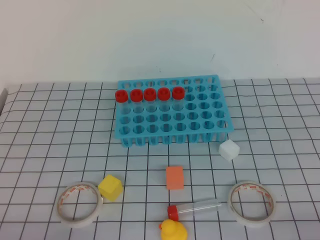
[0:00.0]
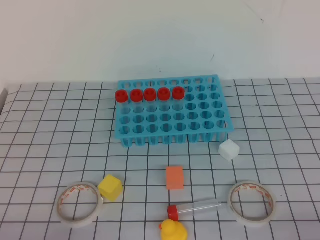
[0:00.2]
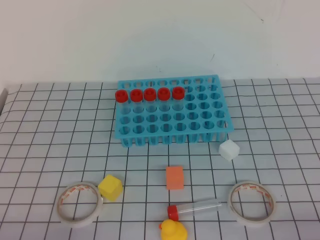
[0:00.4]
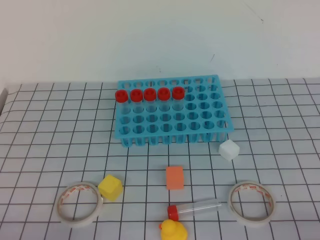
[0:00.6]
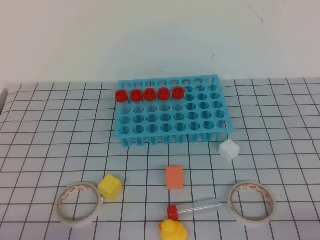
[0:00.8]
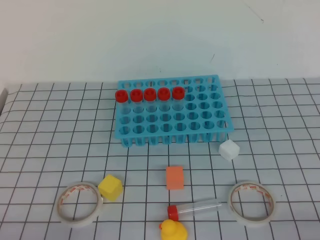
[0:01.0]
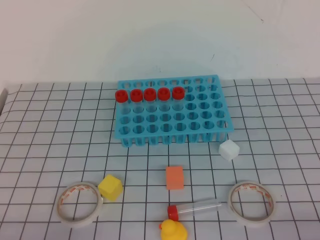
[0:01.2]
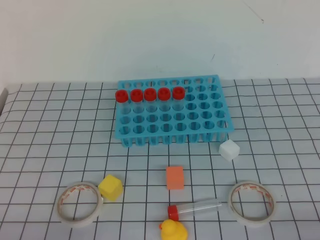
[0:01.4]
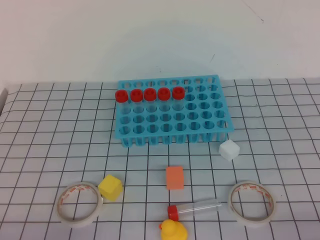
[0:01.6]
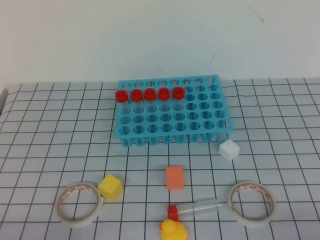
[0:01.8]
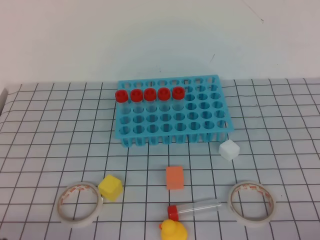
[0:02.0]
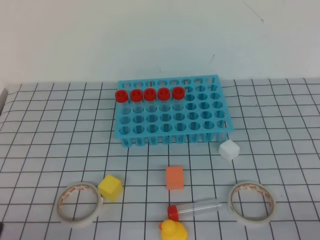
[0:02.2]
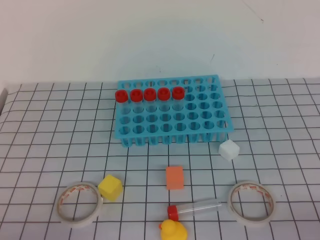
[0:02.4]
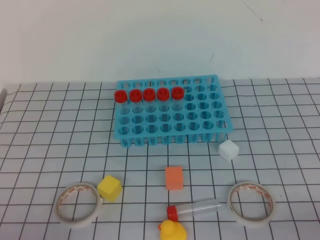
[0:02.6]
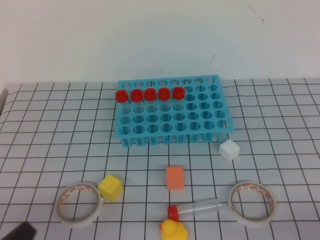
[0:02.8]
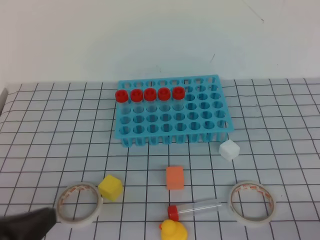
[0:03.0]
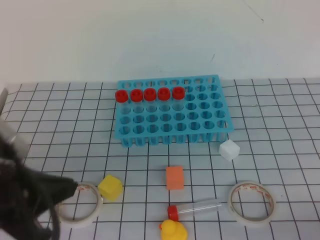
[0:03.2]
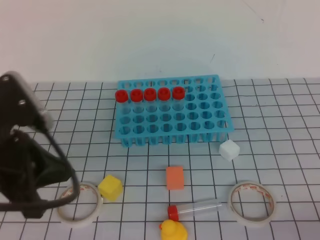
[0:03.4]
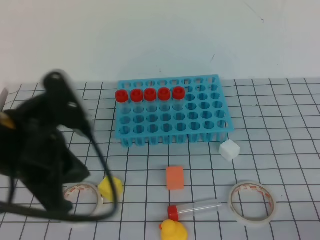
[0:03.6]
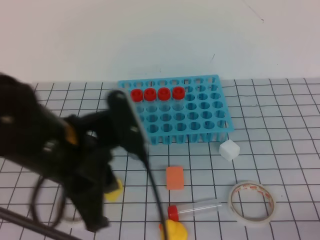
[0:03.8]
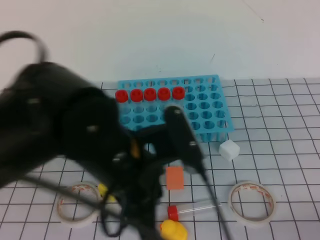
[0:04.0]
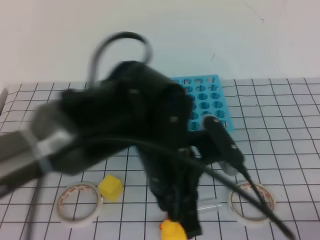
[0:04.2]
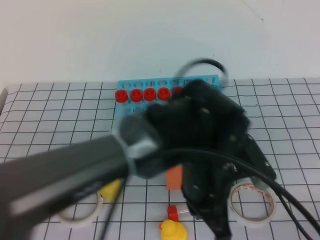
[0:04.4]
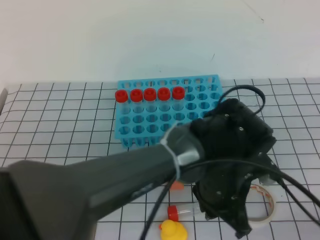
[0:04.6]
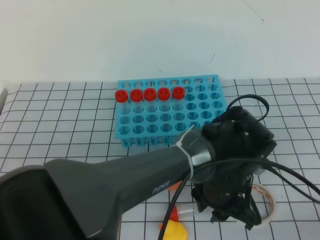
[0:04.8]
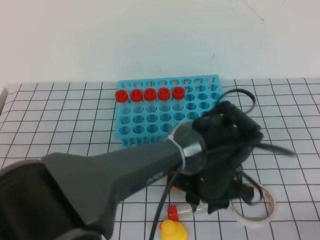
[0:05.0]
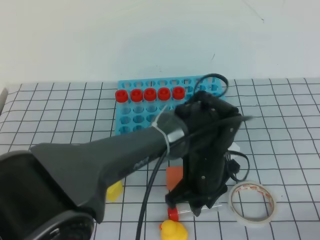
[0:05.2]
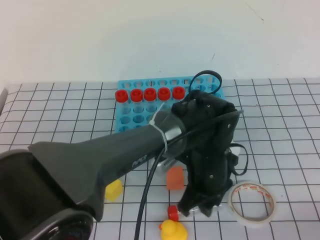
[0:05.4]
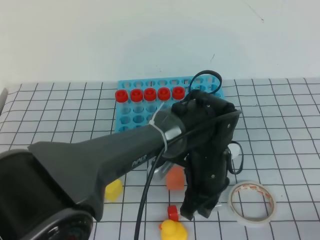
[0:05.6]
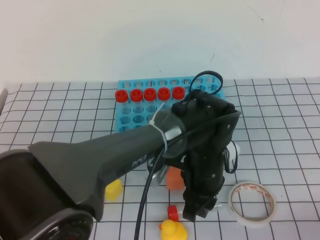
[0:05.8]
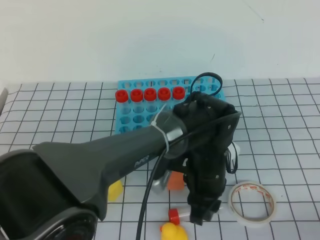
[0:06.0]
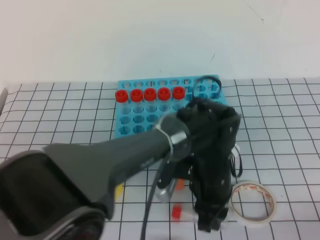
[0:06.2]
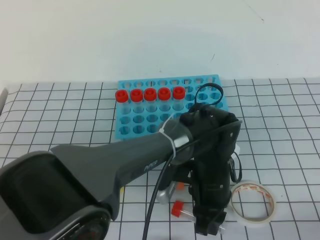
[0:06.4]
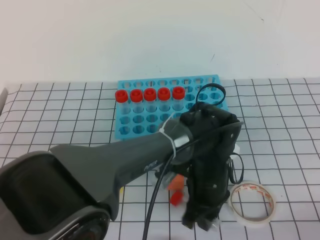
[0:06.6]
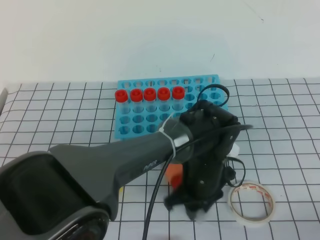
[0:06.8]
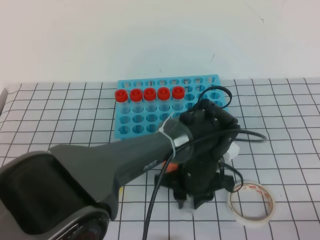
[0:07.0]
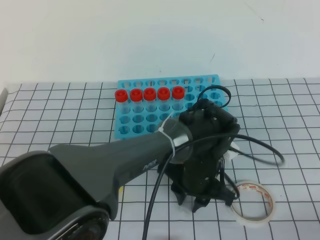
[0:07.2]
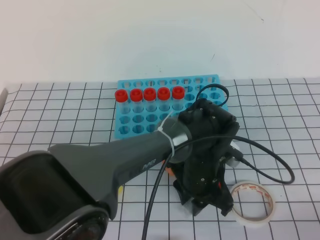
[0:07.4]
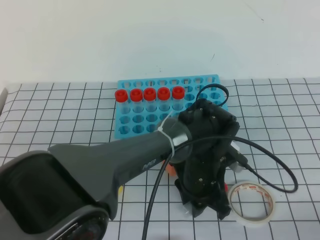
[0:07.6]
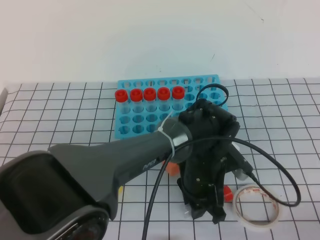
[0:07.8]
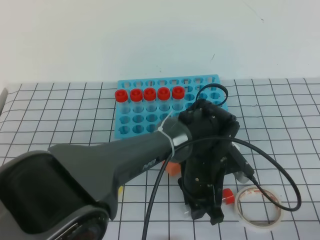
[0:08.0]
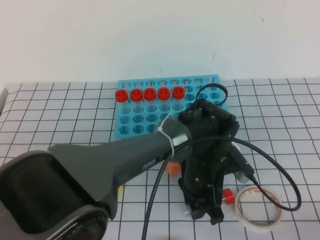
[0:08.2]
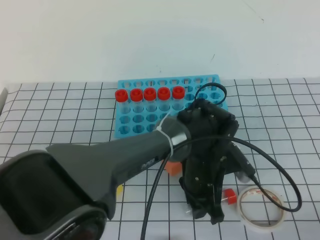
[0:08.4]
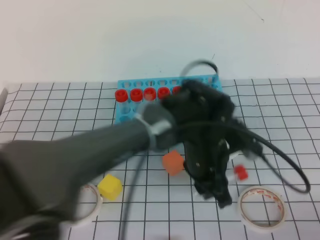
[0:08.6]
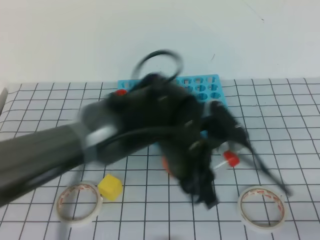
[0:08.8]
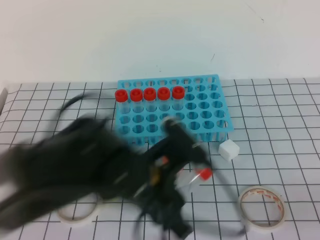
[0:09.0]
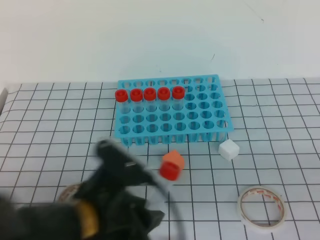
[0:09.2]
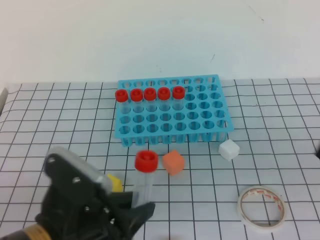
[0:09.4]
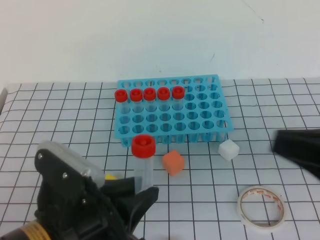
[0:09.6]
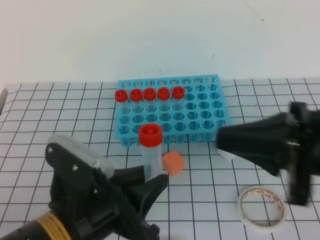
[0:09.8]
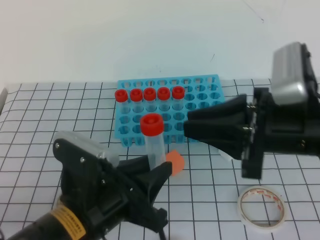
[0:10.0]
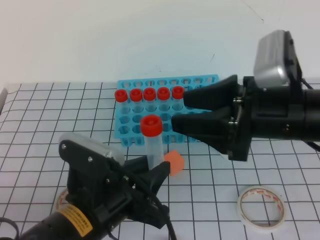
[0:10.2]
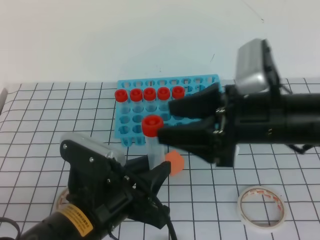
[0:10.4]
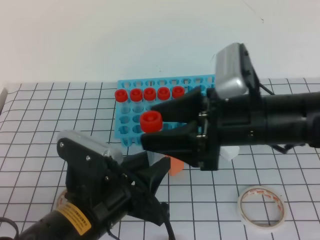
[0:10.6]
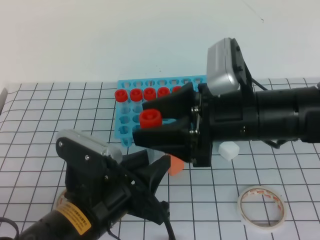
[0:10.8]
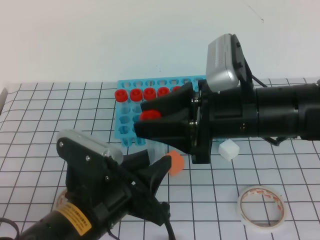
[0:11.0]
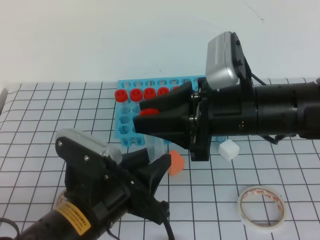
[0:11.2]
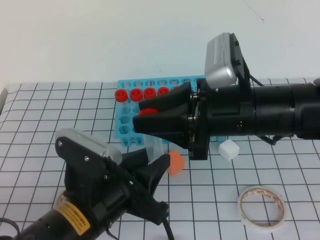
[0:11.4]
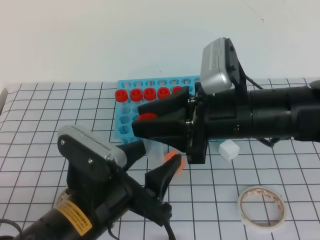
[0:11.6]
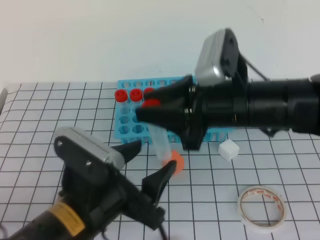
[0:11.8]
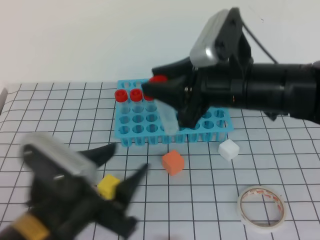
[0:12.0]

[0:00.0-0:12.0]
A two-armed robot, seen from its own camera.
0:00.0 to 0:01.6: Both grippers stay put.
0:01.6 to 0:03.0: The left gripper goes roughly 10 cm upward.
0:03.0 to 0:04.4: The left gripper shifts approximately 30 cm to the right and forward.
0:04.4 to 0:06.0: The left gripper heads downward and forward, covering roughly 10 cm, and opens.
0:07.6 to 0:09.0: The left gripper shifts about 15 cm upward, backward and to the left.
0:09.0 to 0:10.4: The right gripper shifts some 25 cm forward and to the left, and opens, while the left gripper heads to the left and backward, covering approximately 10 cm.
0:10.4 to 0:12.0: The left gripper opens, while the right gripper closes up.

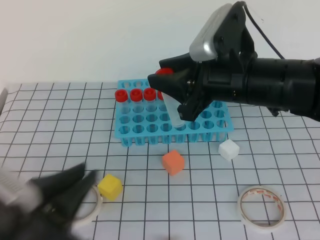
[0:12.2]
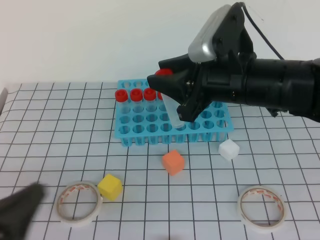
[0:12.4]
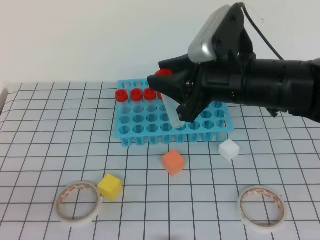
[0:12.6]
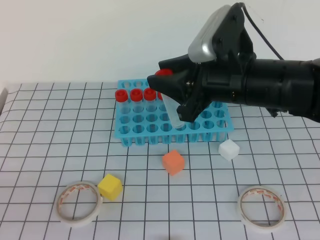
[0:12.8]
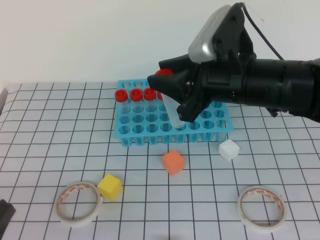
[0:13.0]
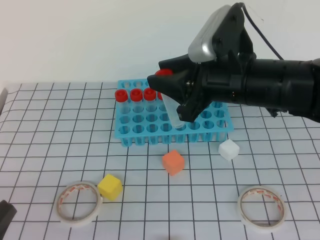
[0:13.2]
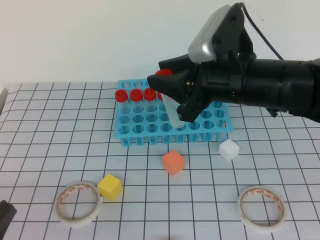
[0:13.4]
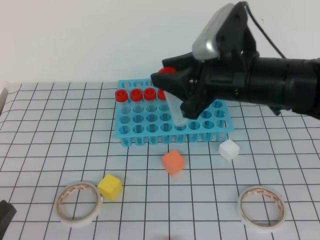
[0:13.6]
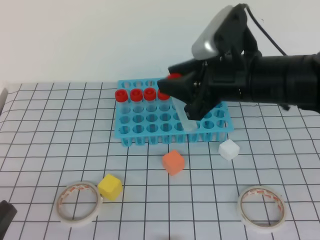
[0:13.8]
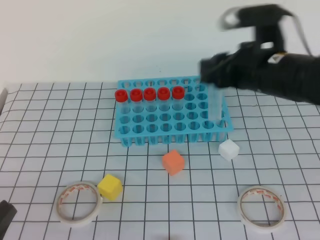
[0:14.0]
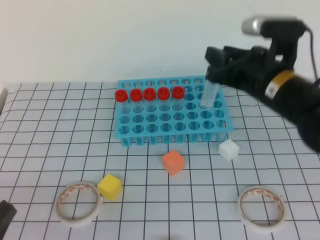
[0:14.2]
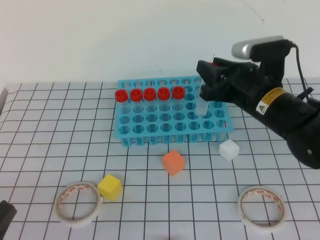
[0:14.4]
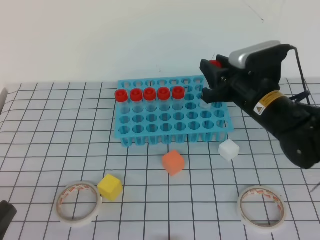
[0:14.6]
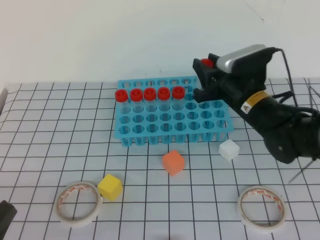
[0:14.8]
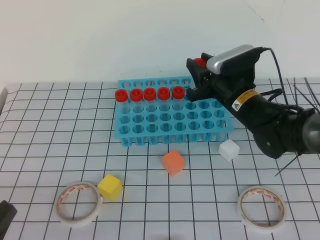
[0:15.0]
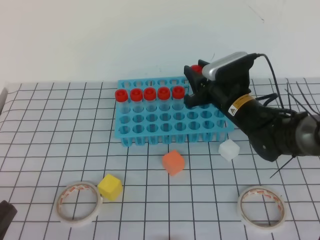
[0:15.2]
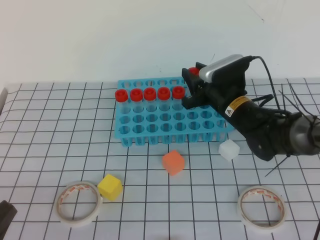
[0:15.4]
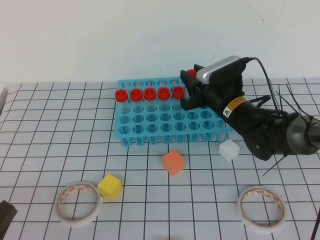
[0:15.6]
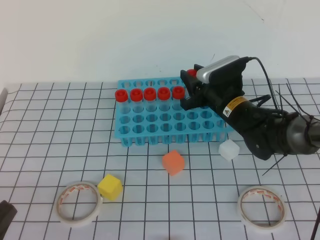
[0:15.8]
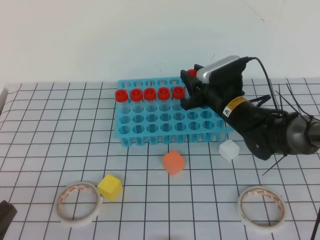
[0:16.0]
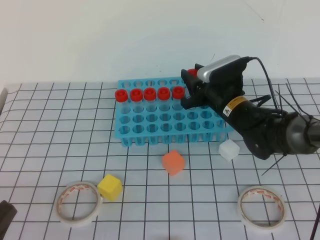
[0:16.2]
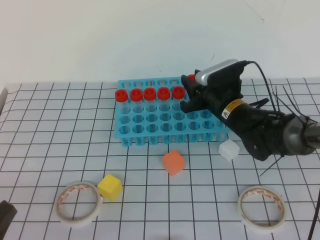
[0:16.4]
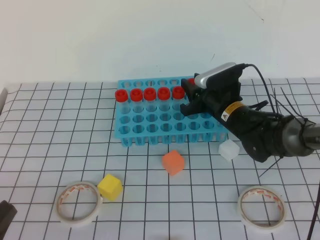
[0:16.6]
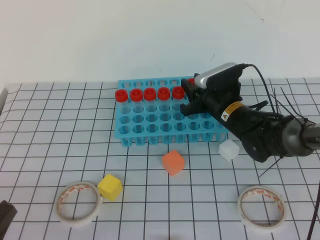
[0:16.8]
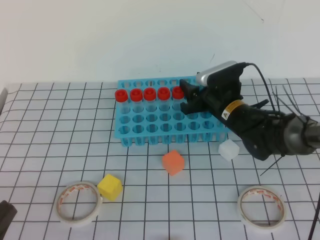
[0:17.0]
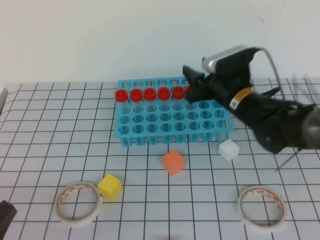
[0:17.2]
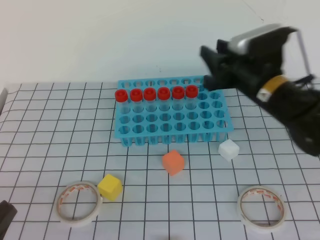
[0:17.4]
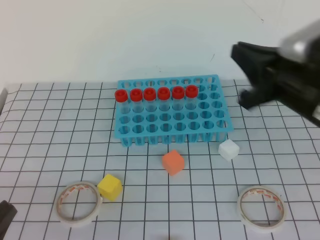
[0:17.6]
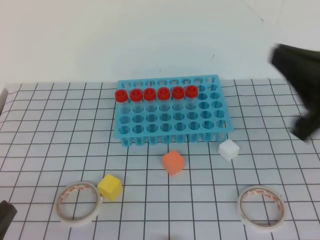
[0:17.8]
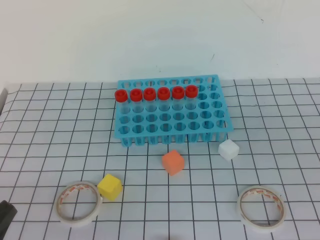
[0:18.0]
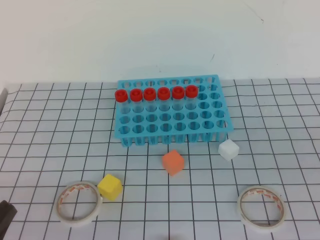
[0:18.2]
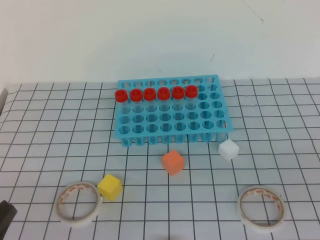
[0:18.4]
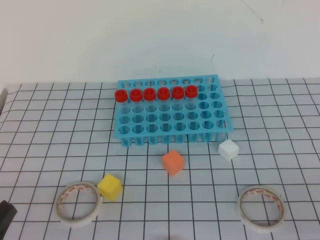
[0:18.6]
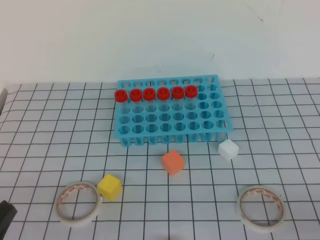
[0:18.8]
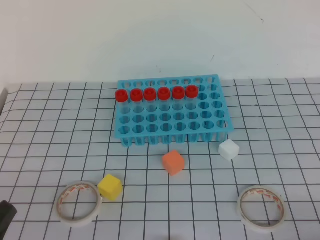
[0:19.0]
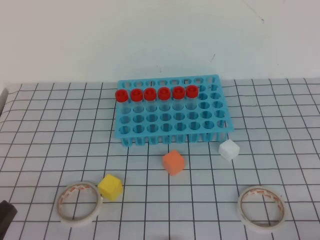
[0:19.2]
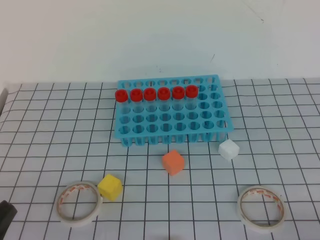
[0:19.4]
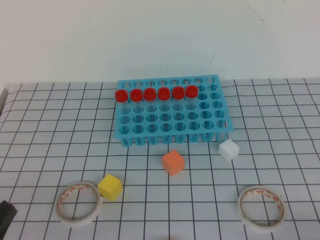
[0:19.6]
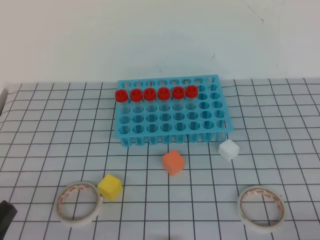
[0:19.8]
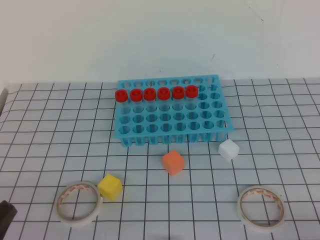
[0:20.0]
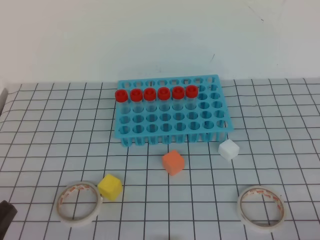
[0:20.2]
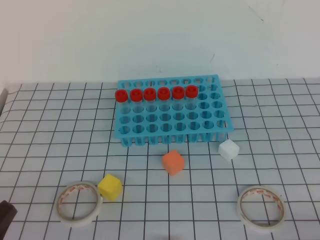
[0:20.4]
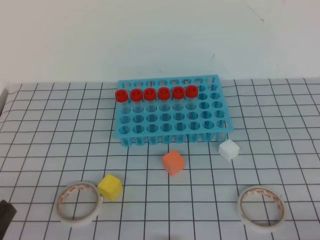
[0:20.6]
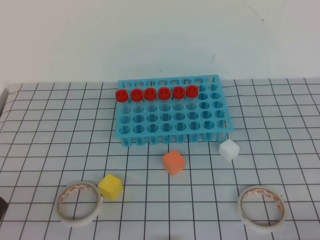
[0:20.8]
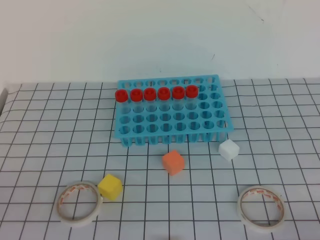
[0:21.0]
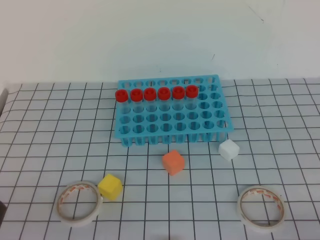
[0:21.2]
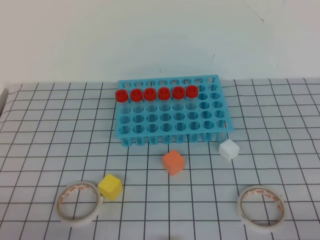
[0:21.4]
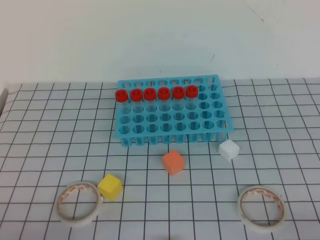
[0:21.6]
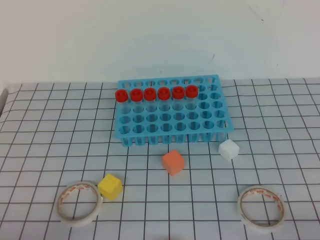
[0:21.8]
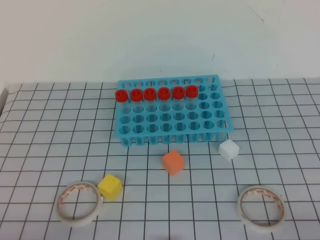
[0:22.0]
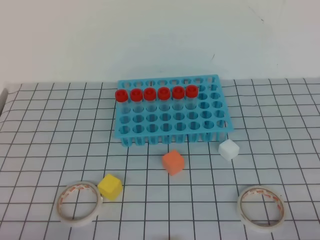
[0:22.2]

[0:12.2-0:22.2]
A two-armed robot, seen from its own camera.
0:12.2 to 0:13.6: The left gripper travels to the left and backward by approximately 10 cm, and closes its fingers.
0:13.6 to 0:15.0: The right gripper goes some 15 cm downward and forward.
0:15.0 to 0:16.4: The right gripper ends up some 5 cm from where it was.
0:16.4 to 0:18.0: The right gripper goes some 35 cm backward, upward and to the right, and closes its fingers.
0:18.0 to 0:19.4: The right gripper moves downward, backward and to the right, about 20 cm.
